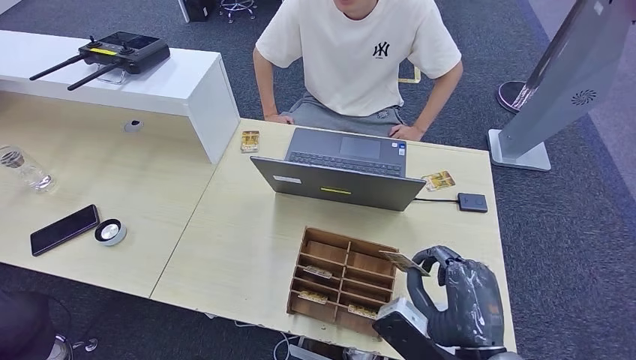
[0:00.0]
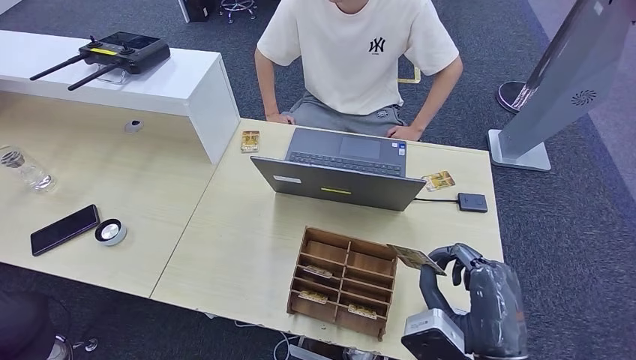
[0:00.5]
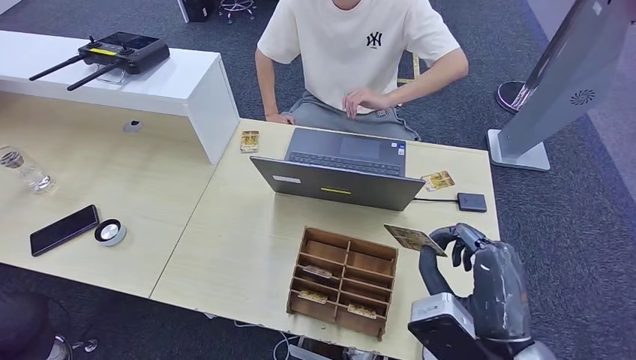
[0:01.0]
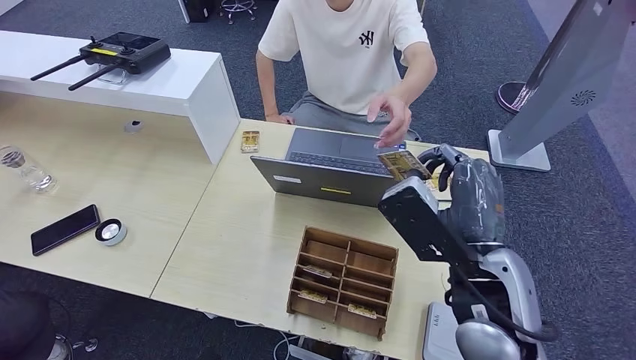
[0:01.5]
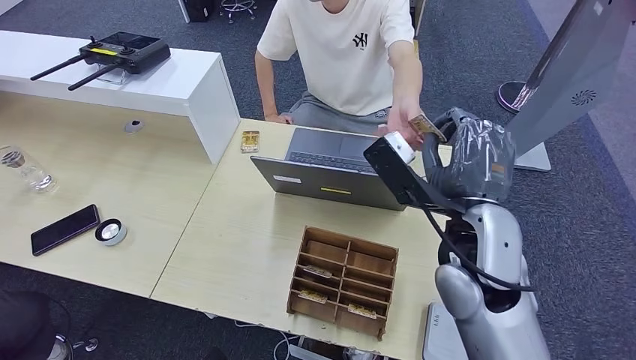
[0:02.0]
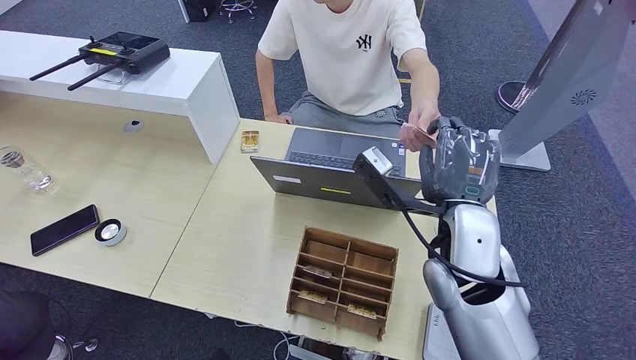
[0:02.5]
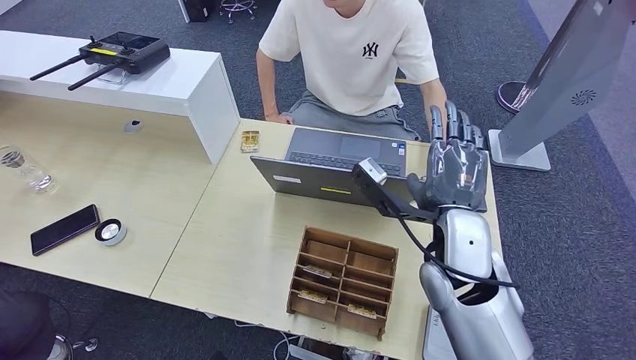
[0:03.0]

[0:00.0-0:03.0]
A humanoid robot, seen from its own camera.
Step, 0:00.0 to 0:03.0: Hand the room key to the person.
0:00.0 to 0:01.5: The right hand shifts about 15 cm forward and upward.
0:01.5 to 0:03.0: The right hand travels forward by approximately 5 cm.
